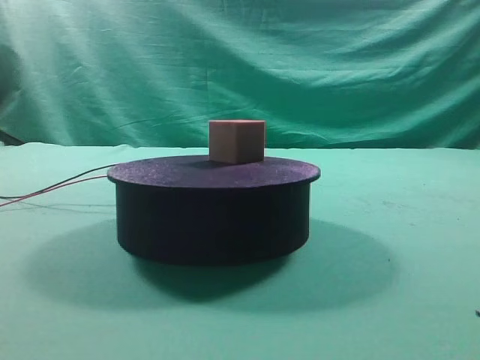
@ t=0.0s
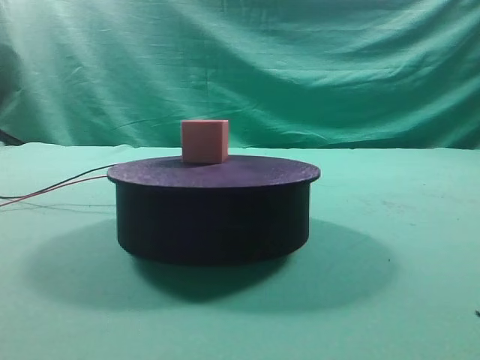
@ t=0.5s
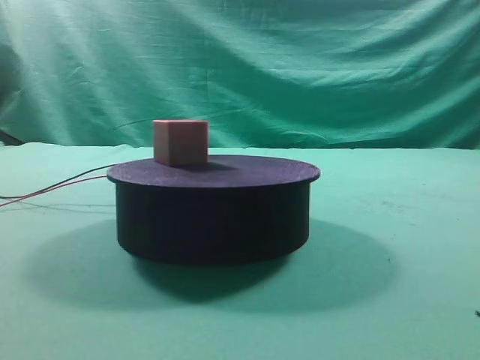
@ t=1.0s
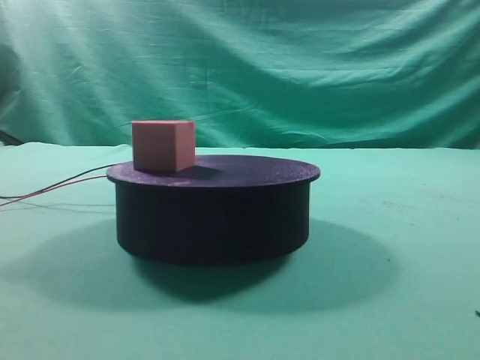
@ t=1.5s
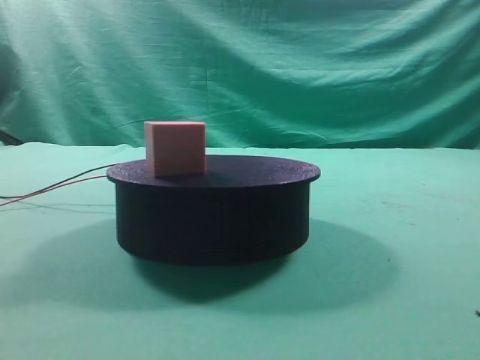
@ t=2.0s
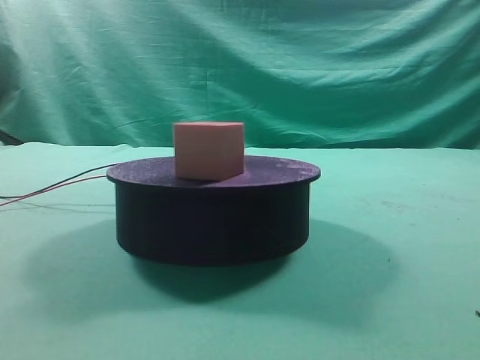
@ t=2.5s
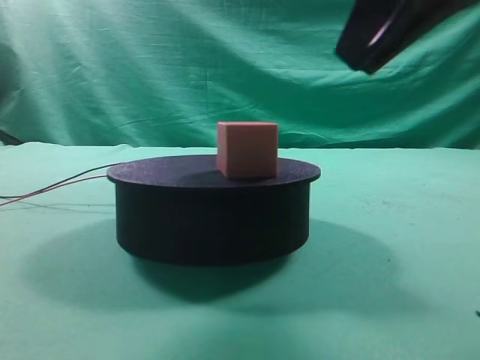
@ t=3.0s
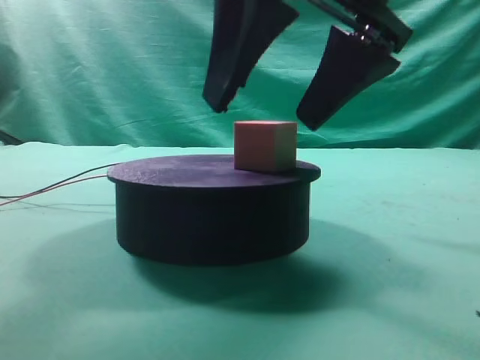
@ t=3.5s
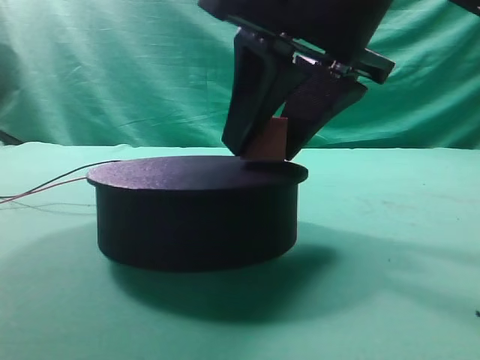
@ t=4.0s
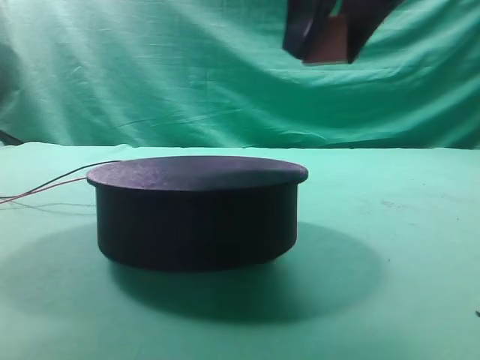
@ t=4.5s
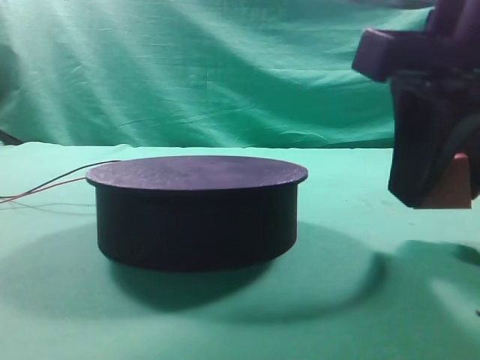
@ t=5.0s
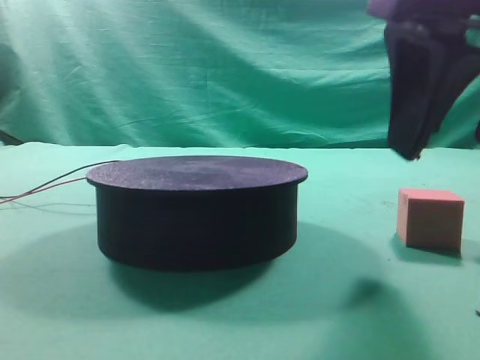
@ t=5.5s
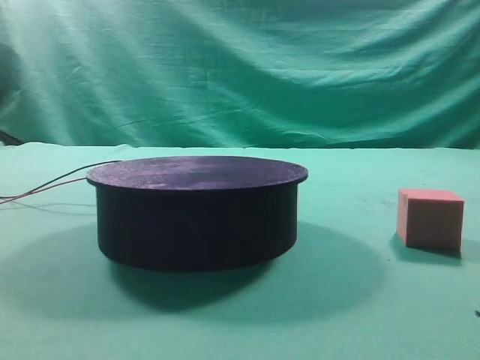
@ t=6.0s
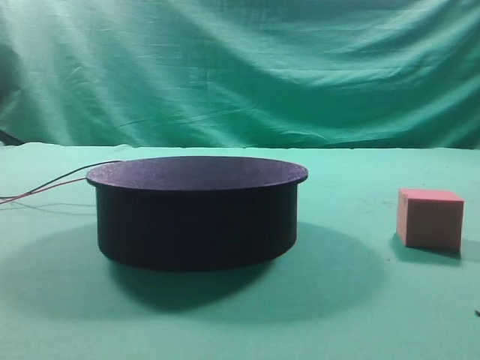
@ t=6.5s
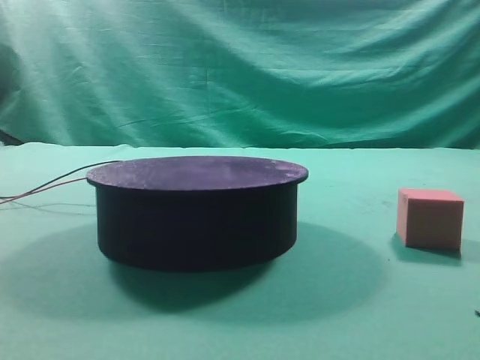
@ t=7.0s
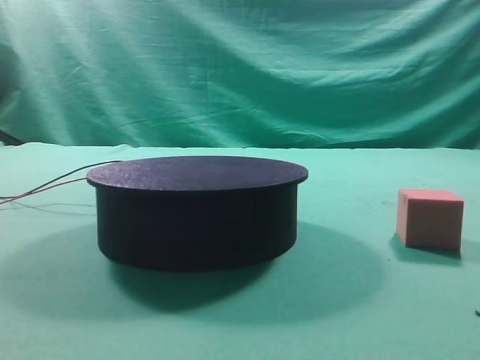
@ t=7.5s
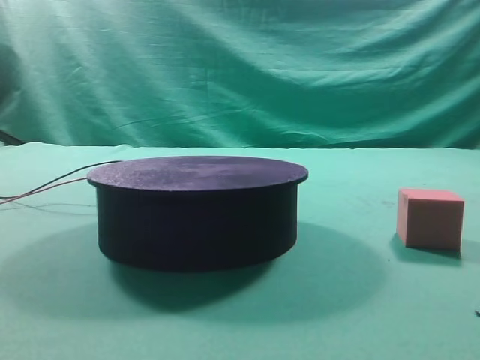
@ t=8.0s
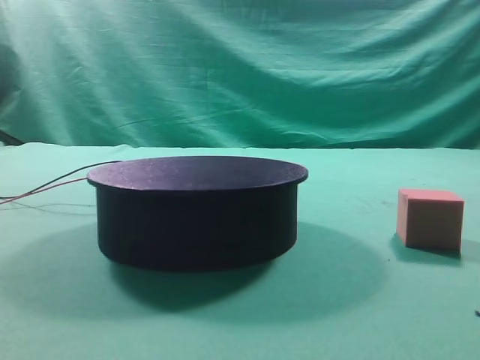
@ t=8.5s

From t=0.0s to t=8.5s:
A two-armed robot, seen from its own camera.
Task of the whole recording: grasp the rotating cube-shaped block on the turntable and place it on the table.
Step, from t=0.0s to t=4.0s: Grasp the rotating cube-shaped block on the turntable.
Step, from t=4.5s to t=5.5s: Place the cube on the desk.
